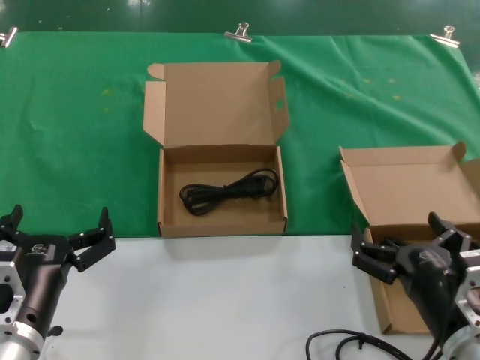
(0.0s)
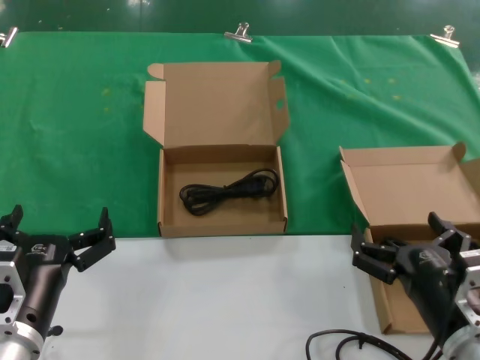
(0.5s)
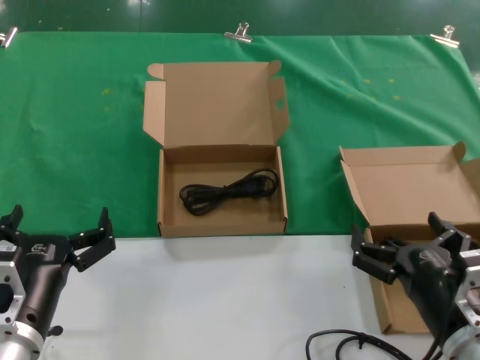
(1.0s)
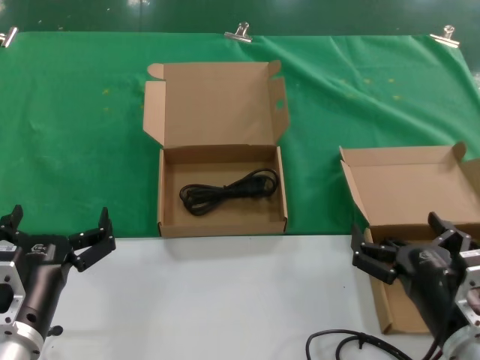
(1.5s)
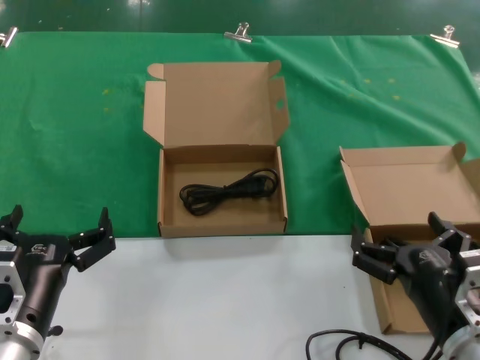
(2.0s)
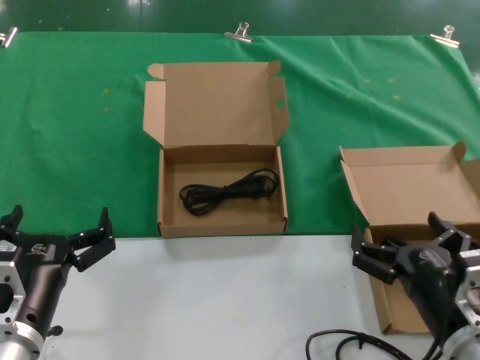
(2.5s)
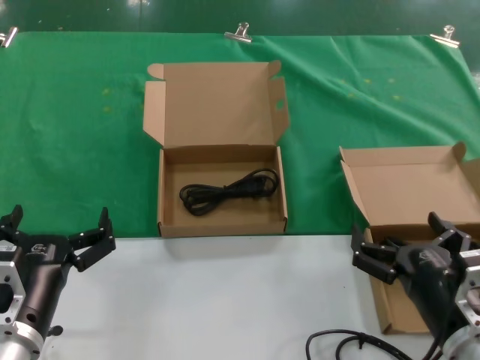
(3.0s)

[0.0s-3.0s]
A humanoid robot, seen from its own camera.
Task of the whole recording: take the parts from the box containing them and put them into an empty box.
0.0s to 3.0s: Both hands stay put.

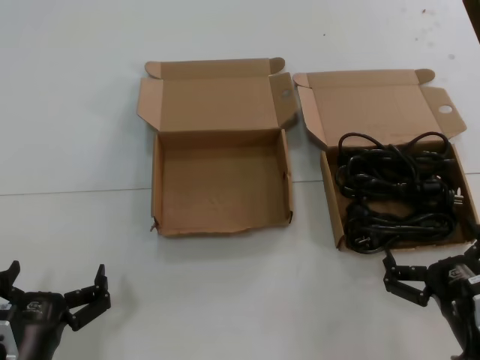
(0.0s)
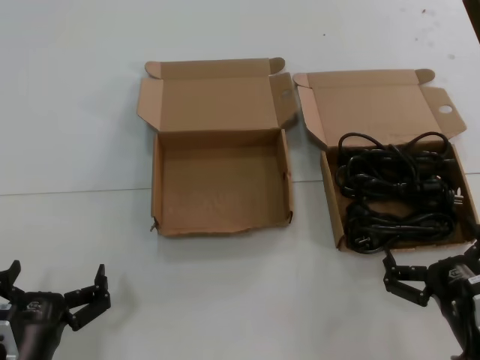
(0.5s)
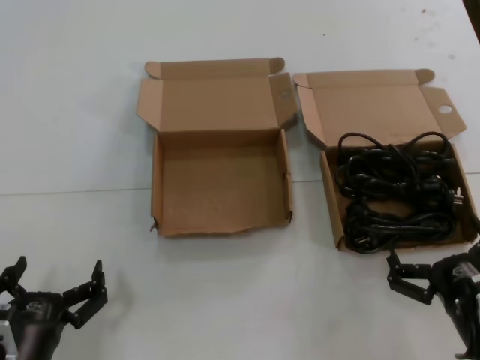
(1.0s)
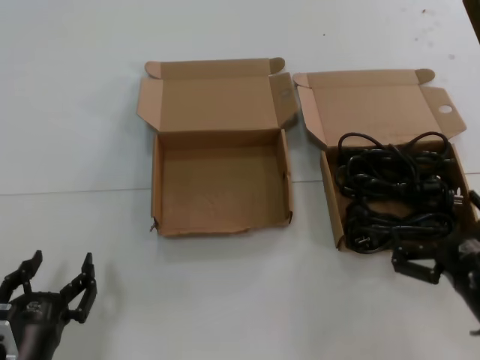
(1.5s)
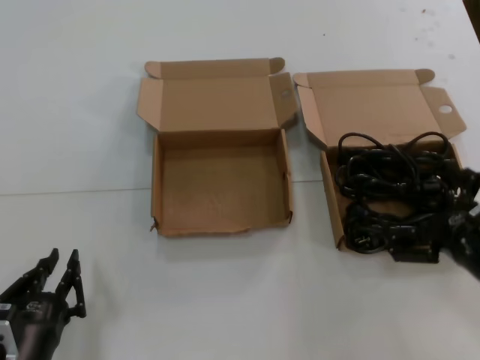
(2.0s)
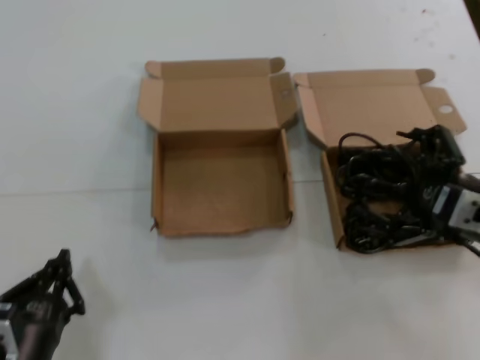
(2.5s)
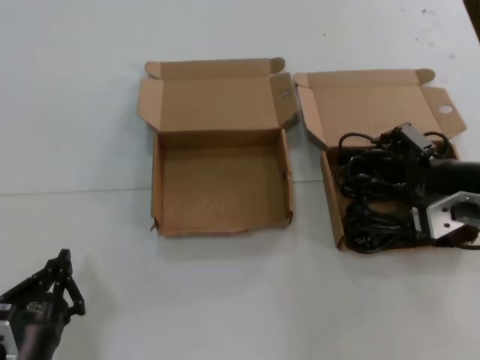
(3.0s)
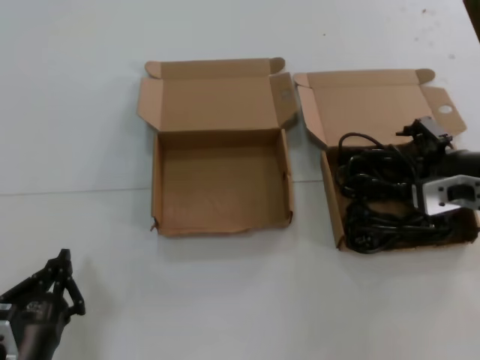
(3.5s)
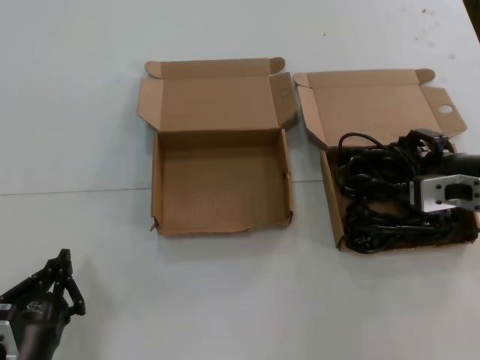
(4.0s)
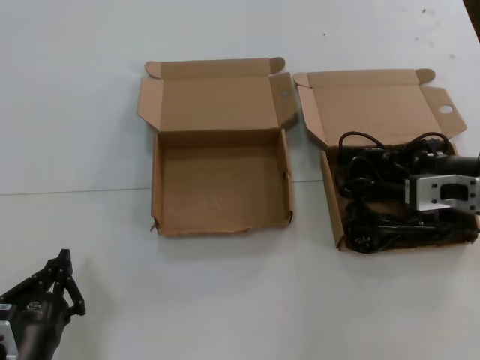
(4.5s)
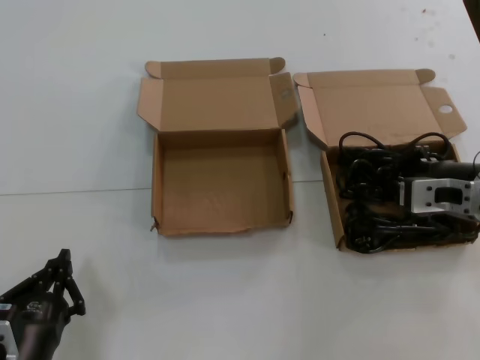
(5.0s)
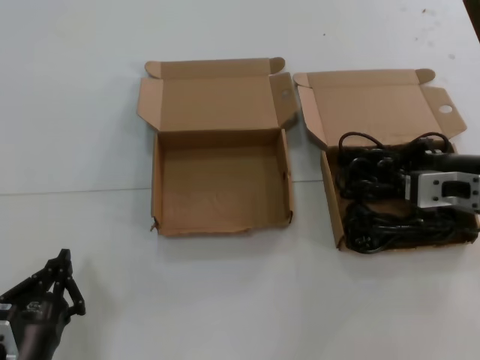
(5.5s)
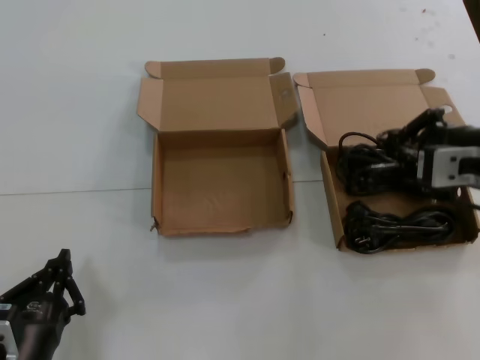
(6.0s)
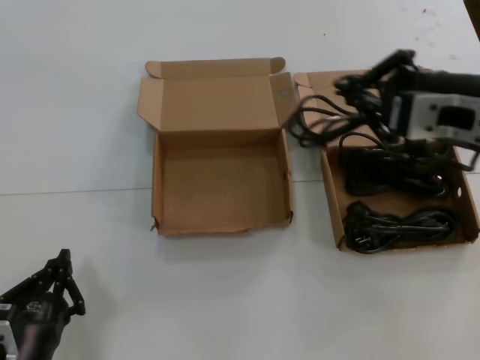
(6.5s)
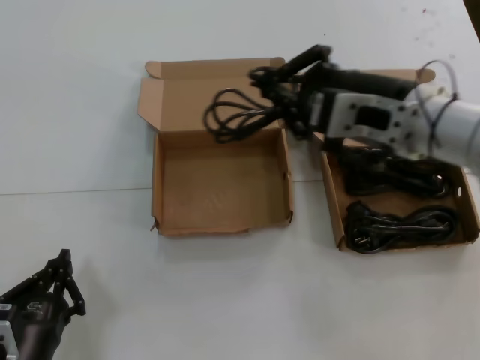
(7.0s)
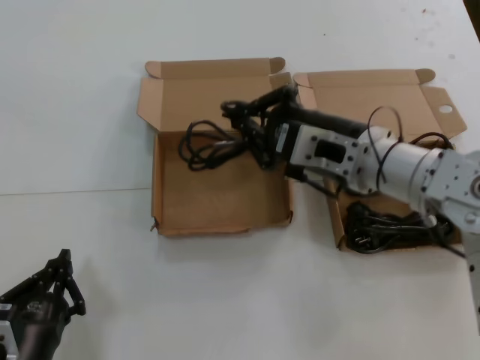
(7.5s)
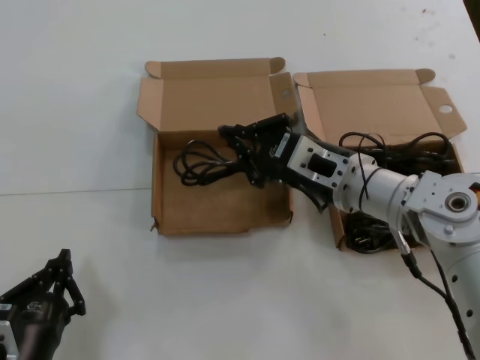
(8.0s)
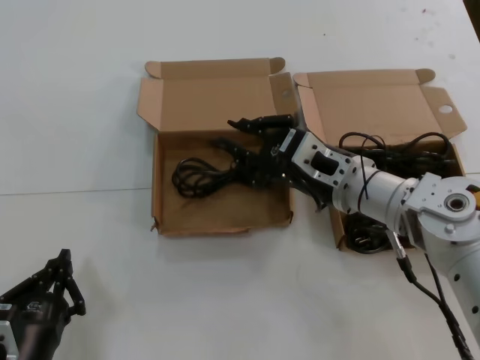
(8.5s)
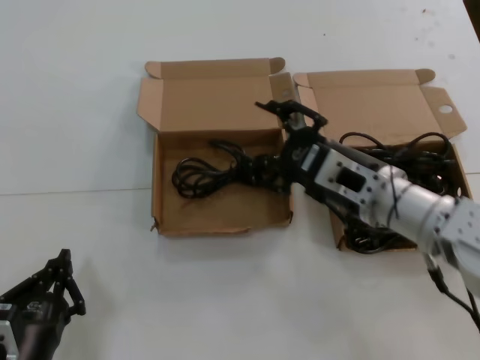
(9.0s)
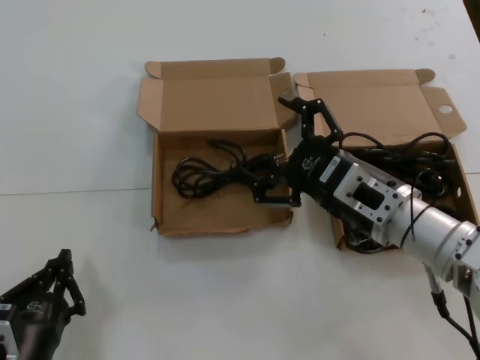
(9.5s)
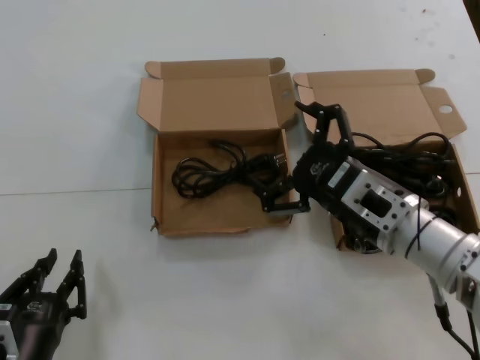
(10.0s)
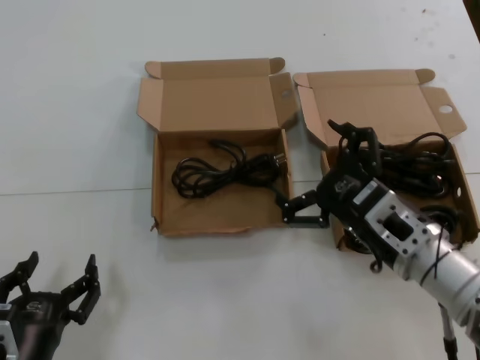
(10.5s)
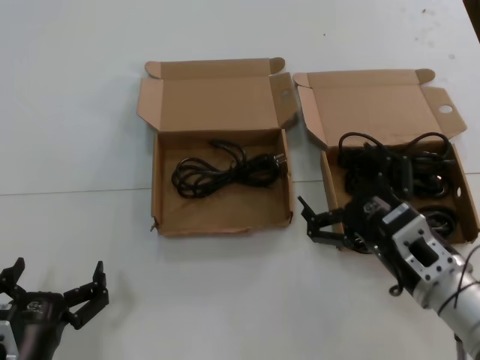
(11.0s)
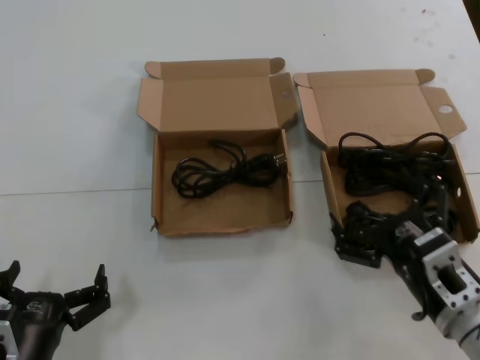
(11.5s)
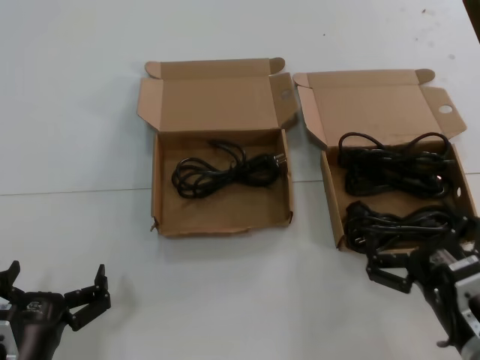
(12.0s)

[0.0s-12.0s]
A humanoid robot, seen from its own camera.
Task of the whole recording: take the parts from the box containing them and put them into an empty box.
Step, 0.0s to 4.5s: Grasp the data cable.
Step, 5.0s to 8.0s: Place the data cable in the another box.
0.0s to 2.0s: The right hand is displaced upward by some 10 cm.
2.0s to 4.0s: The right hand travels forward and upward by roughly 15 cm.
4.0s to 6.0s: The right hand shifts by some 5 cm.
6.0s to 8.0s: The right hand heads to the left, downward and forward, covering some 15 cm.
8.0s to 10.0s: The right hand heads backward, covering some 5 cm.
10.0s to 12.0s: The right hand goes roughly 15 cm downward, backward and to the right.

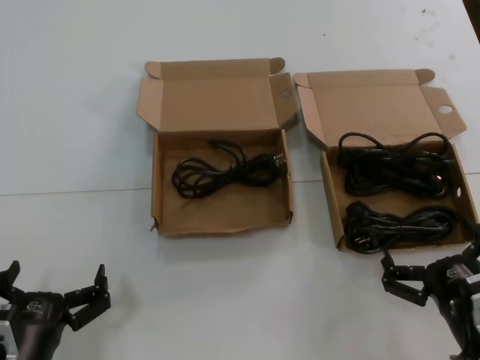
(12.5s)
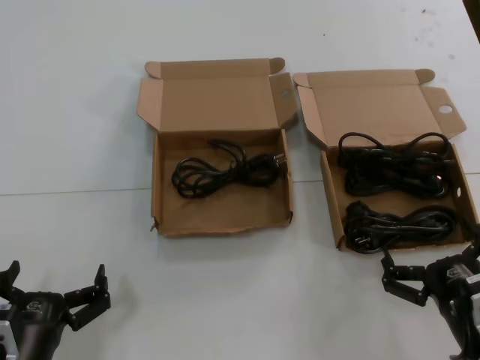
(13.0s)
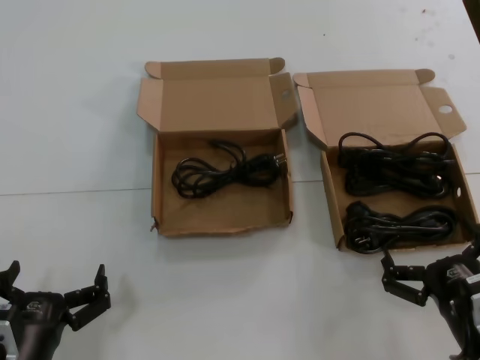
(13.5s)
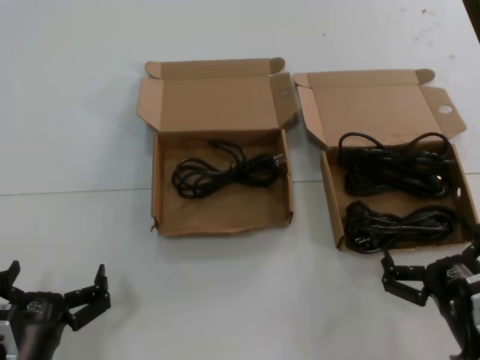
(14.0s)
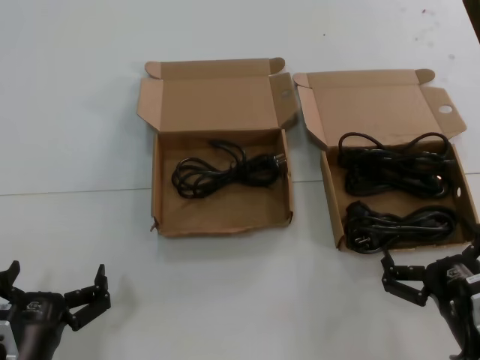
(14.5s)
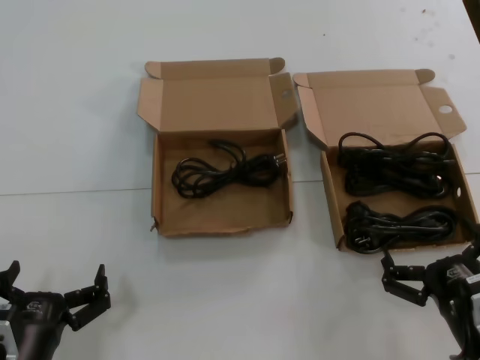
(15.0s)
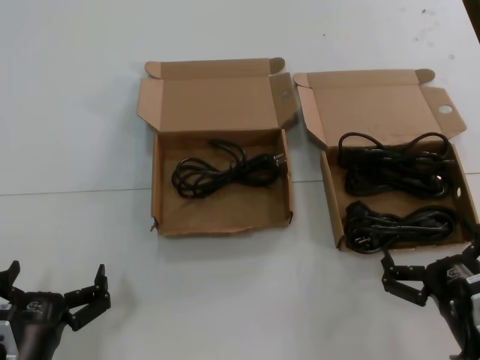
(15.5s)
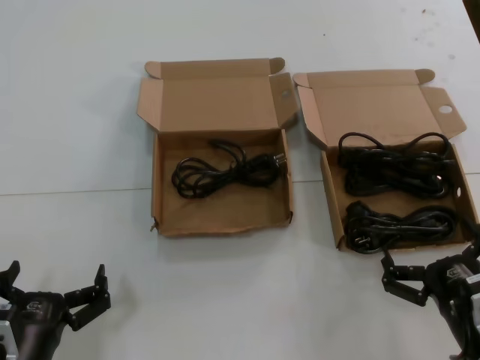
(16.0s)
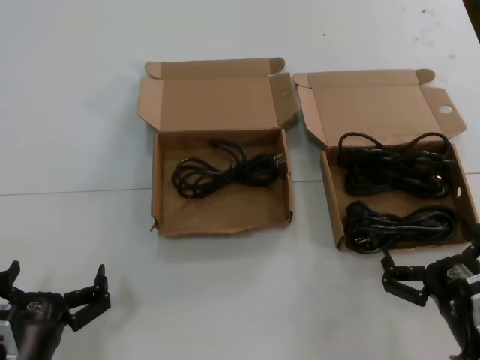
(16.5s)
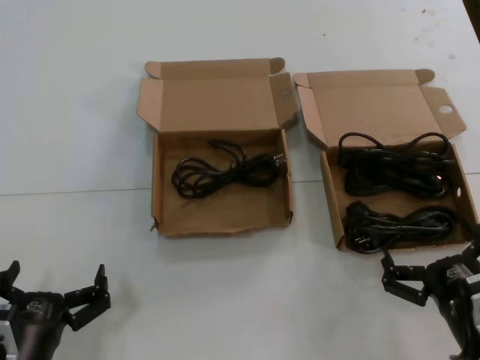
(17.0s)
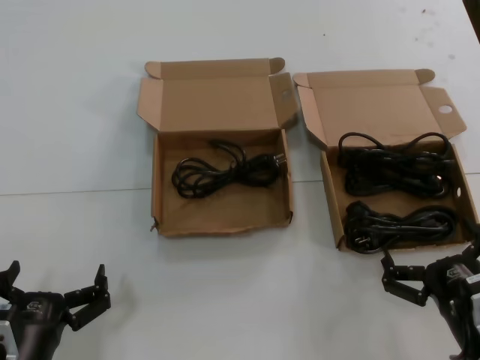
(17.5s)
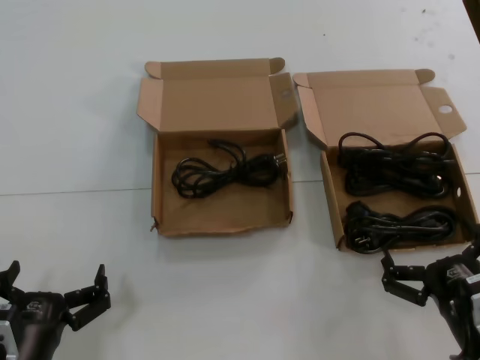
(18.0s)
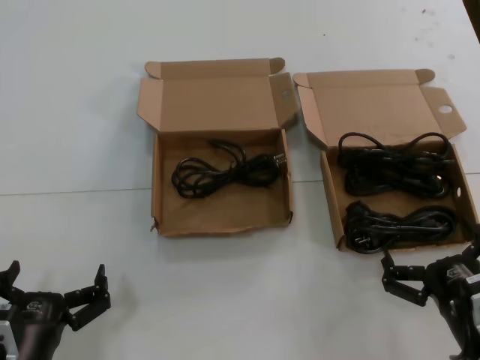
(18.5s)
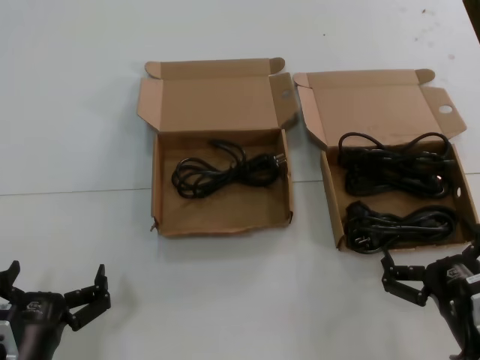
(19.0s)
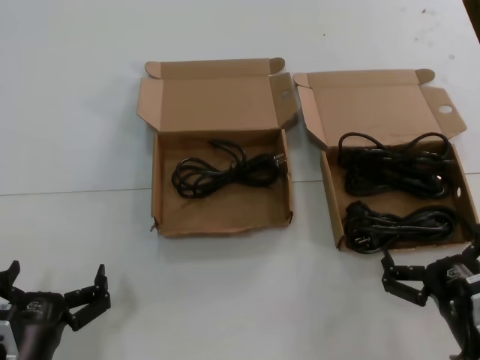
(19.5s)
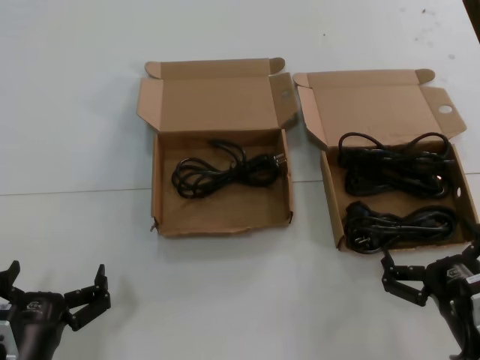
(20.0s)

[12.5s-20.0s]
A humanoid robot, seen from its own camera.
Task of the whole recording: take the parts from the box containing them and put them into an empty box.
12.5s to 20.0s: The two hands keep their place.

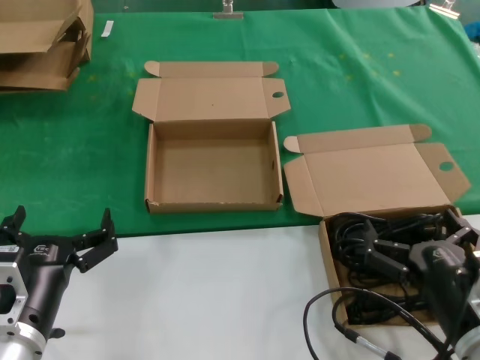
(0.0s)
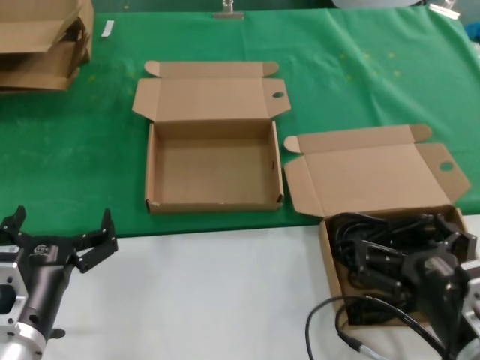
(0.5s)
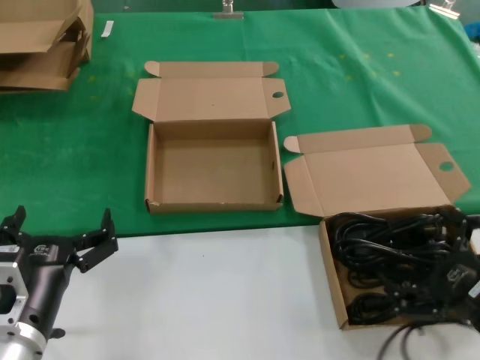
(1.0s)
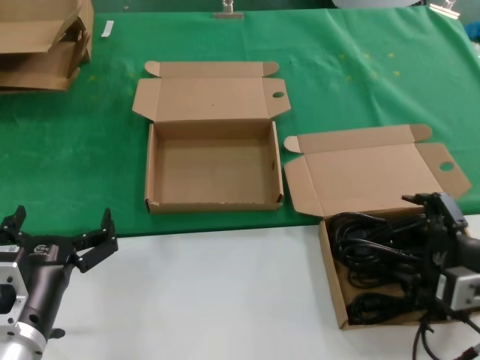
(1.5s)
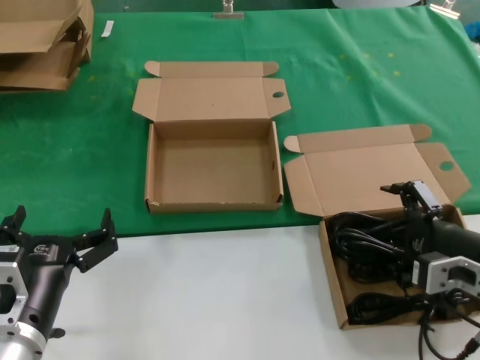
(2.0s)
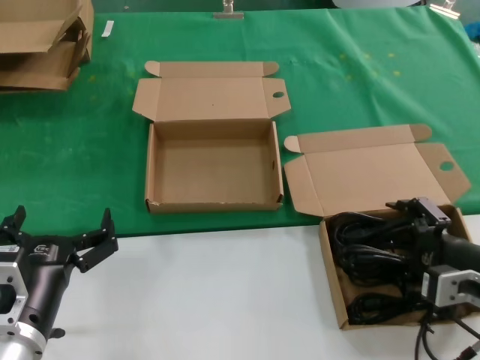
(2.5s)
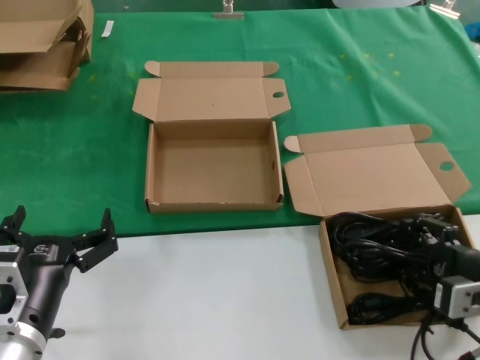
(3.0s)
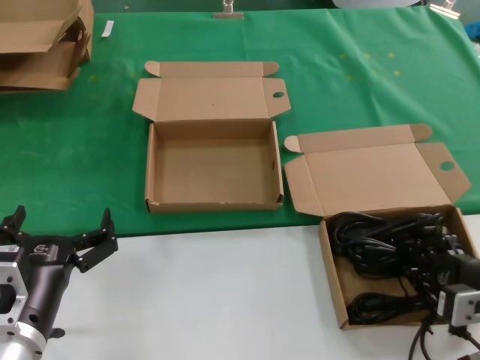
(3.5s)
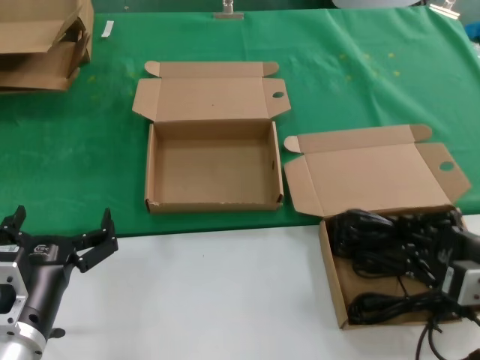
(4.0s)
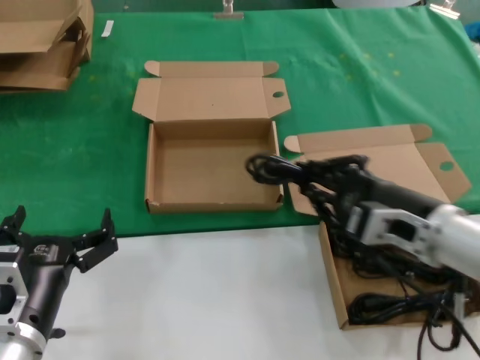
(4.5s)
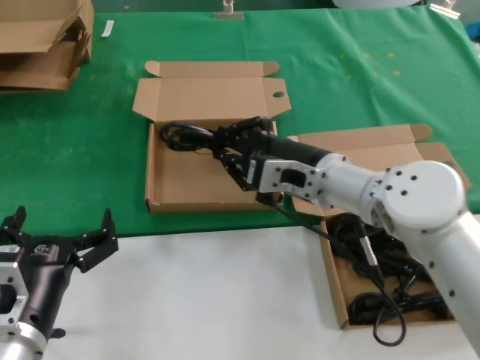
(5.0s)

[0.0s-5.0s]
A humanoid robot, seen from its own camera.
Task of the whole recording: take the parts from the box containing them and put them into an empty box.
Step, 0.0s to 3.0s: Grasp the data cable.
0.0s to 2.5s: The right hand is displaced forward, to the right and upward by about 10 cm.
2.5s to 5.0s: The right hand travels to the left and forward by some 20 cm.
